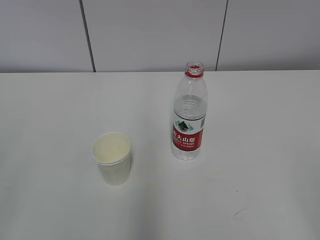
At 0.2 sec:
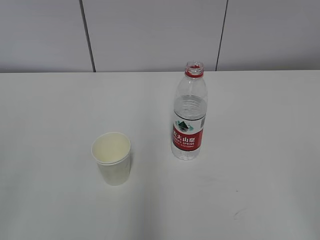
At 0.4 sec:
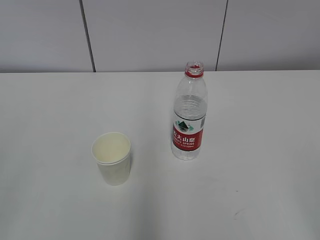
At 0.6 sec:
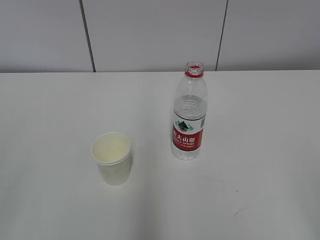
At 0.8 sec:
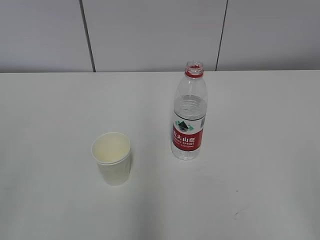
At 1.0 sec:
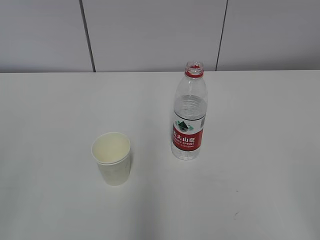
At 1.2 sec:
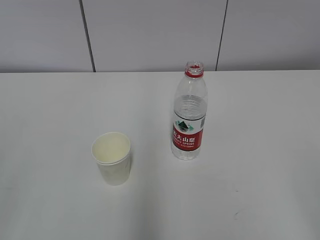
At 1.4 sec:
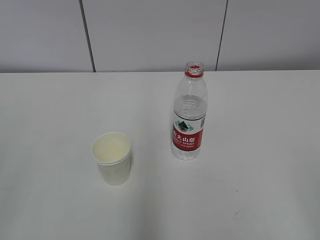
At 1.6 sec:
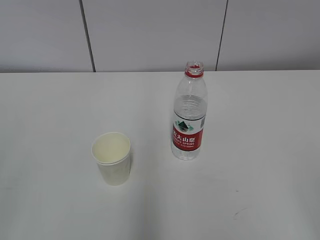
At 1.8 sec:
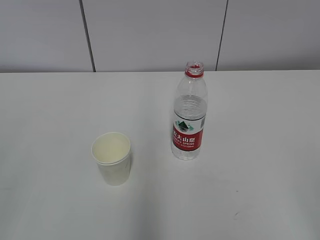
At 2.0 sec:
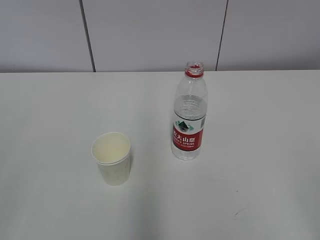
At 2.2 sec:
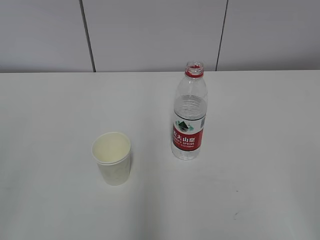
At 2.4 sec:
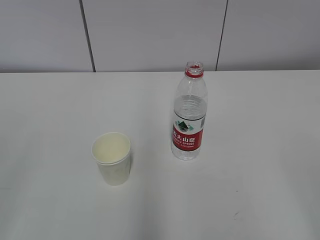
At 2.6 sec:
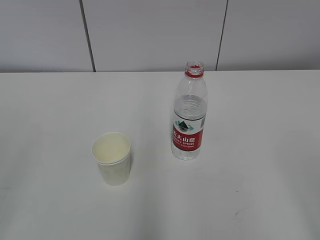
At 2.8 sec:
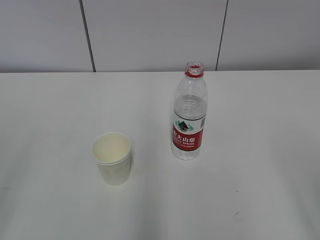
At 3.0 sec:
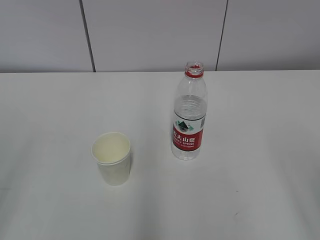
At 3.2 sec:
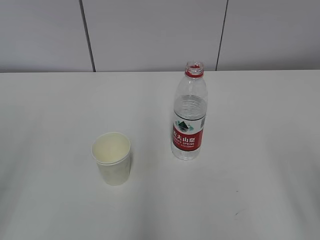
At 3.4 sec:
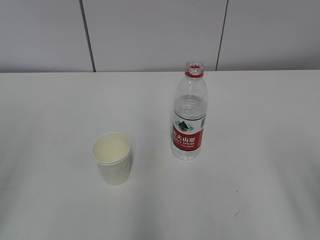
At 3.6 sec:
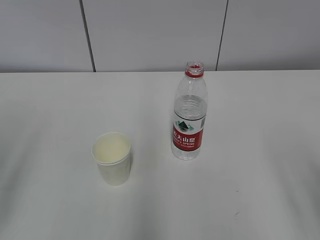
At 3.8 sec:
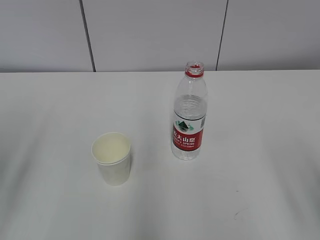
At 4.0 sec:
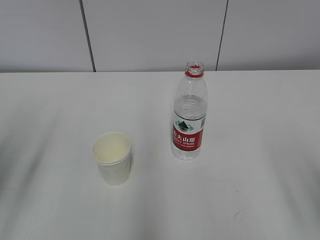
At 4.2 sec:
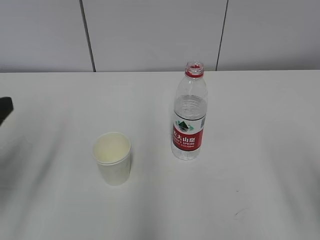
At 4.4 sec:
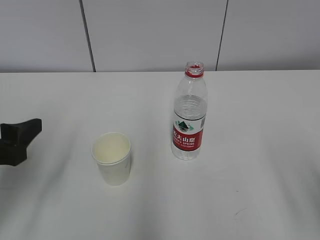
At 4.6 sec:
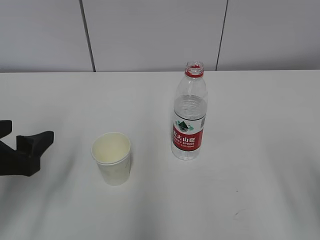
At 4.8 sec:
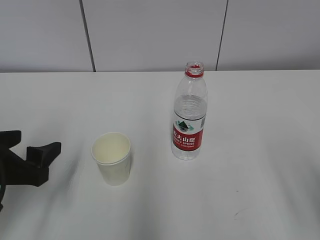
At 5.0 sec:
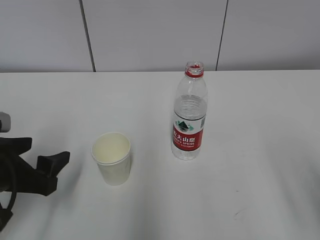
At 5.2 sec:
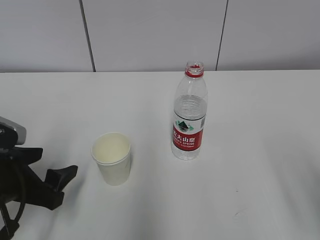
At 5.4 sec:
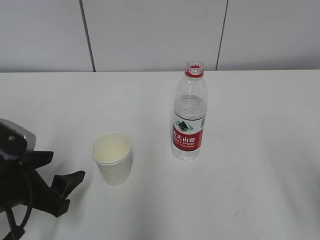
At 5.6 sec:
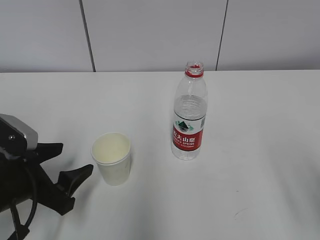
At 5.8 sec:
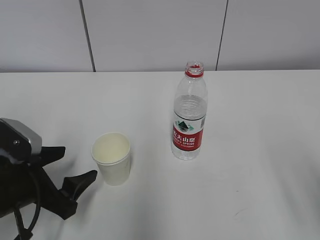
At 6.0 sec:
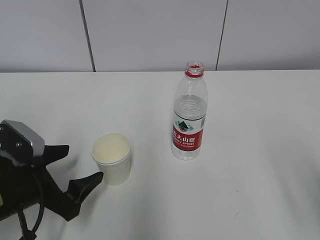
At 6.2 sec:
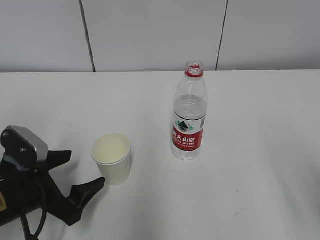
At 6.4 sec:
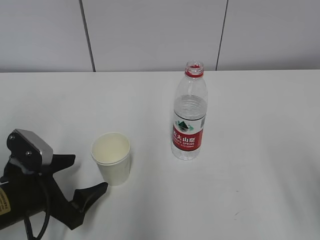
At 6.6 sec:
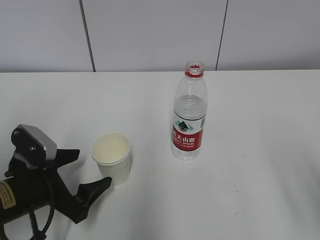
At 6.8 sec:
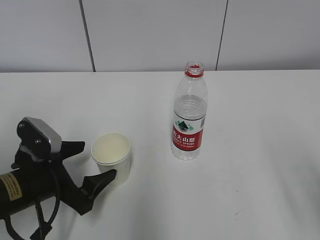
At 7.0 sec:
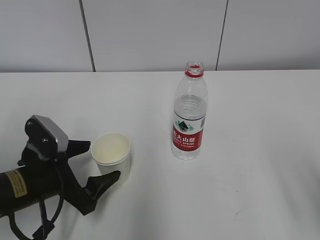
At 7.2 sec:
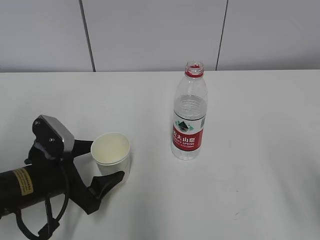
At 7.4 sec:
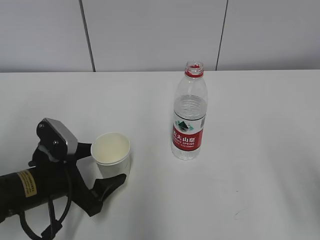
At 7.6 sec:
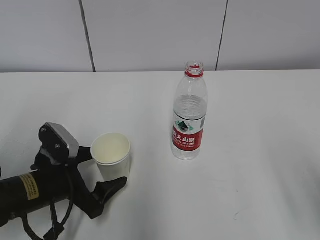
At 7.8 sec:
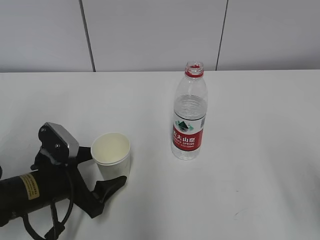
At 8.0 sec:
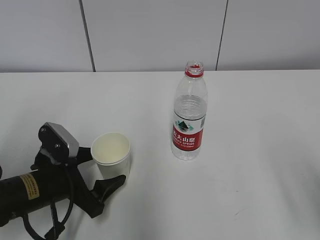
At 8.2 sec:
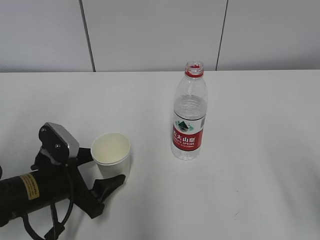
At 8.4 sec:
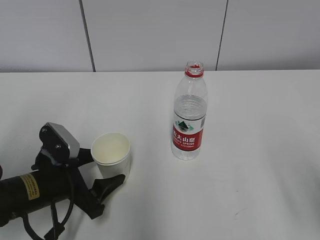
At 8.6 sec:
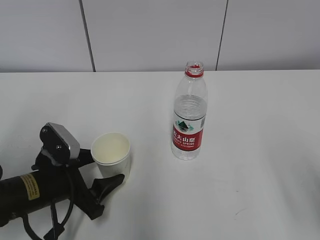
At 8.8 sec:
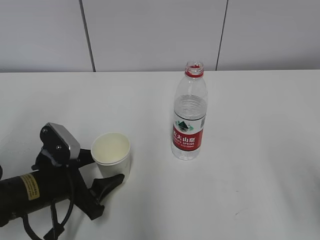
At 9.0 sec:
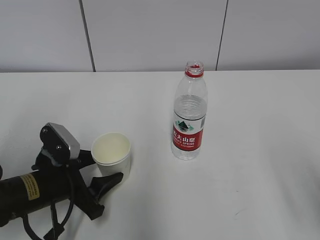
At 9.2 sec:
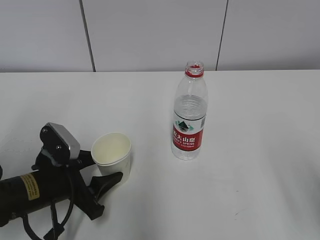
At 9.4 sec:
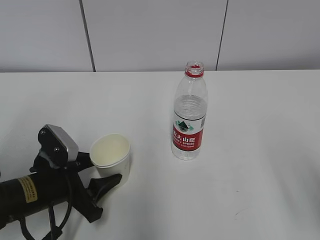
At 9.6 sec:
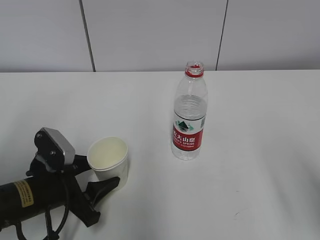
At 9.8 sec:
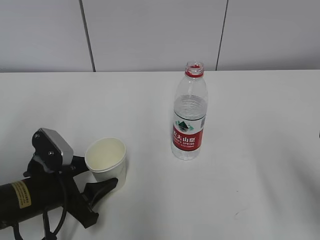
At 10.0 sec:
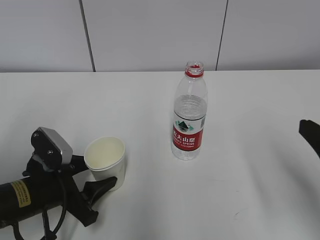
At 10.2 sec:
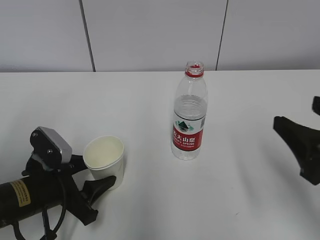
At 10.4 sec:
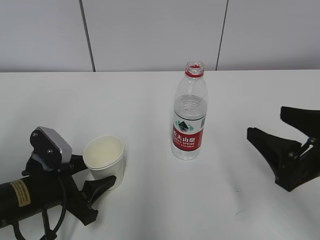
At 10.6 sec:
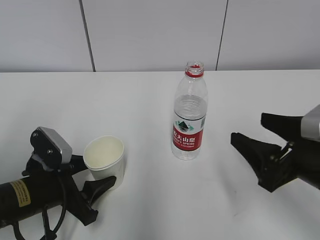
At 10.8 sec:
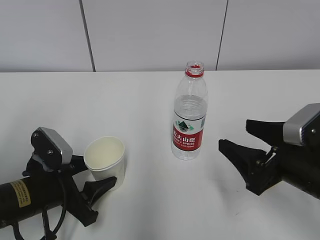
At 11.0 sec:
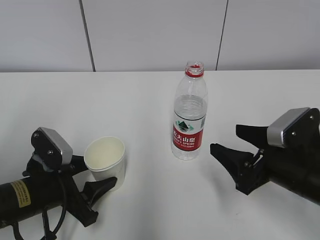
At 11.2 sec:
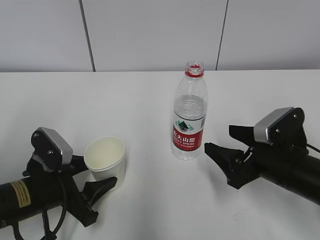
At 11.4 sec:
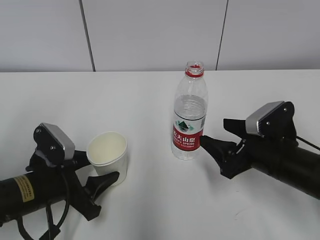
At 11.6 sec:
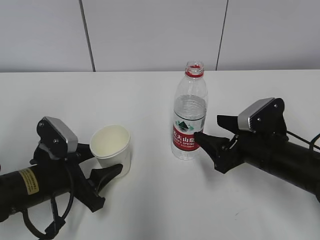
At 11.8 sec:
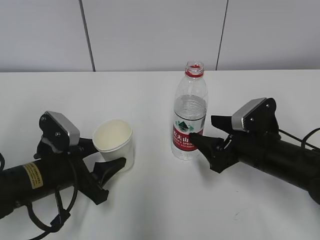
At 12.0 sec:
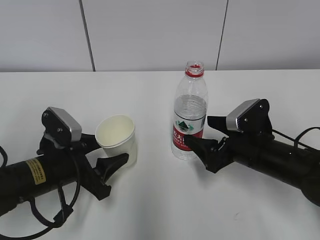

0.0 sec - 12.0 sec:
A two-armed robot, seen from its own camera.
Step, 0.0 sec - 8.0 sec: Grab the paper cup with the left hand.
Step, 8.2 sec - 11.2 sec: Grab the water bottle with the right hand.
3.0 sec - 4.4 sec: The left gripper travels forward, downward and to the right by about 15 cm.
4.4 sec - 6.0 sec: The left gripper goes approximately 10 cm downward.
6.0 sec - 7.6 sec: The left gripper moves about 5 cm.
7.6 sec - 9.0 sec: The left gripper closes its fingers.
9.0 sec - 10.4 sec: The right gripper is displaced forward by some 10 cm.
10.4 sec - 12.0 sec: The right gripper heads forward and downward, covering about 15 cm.

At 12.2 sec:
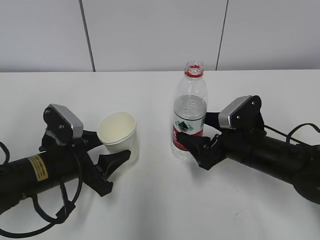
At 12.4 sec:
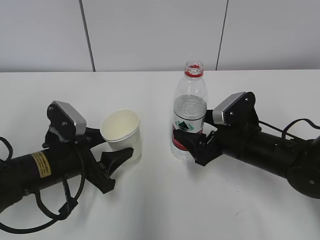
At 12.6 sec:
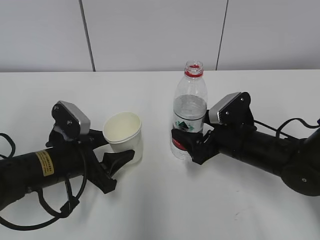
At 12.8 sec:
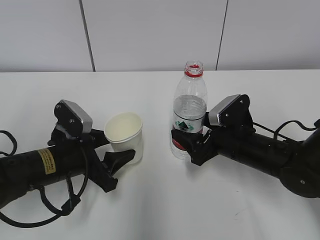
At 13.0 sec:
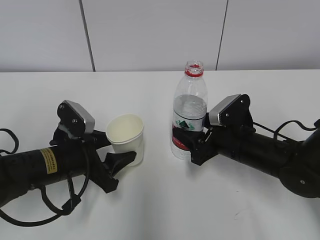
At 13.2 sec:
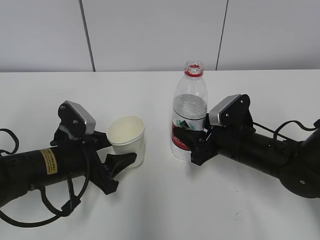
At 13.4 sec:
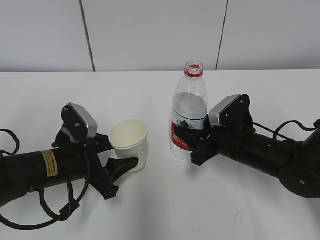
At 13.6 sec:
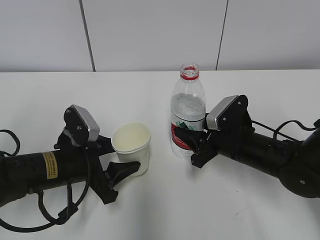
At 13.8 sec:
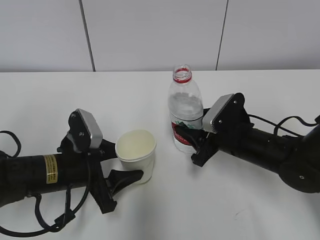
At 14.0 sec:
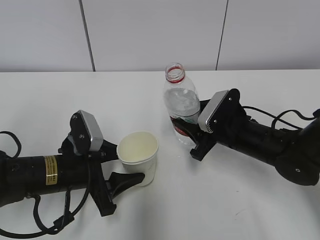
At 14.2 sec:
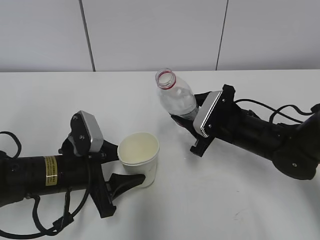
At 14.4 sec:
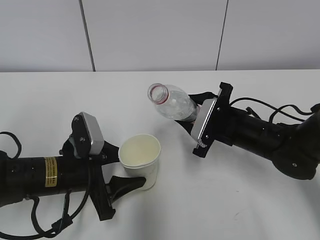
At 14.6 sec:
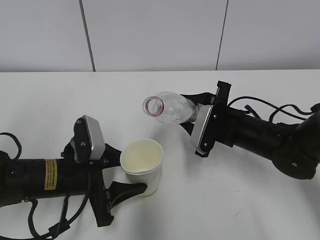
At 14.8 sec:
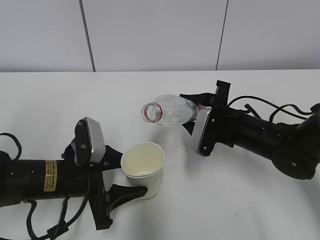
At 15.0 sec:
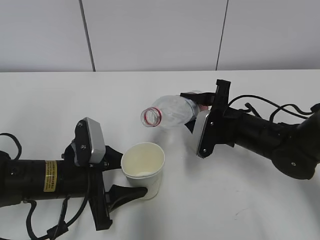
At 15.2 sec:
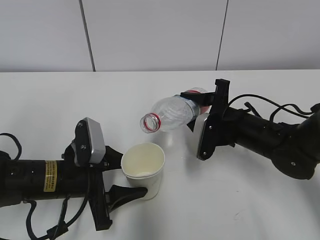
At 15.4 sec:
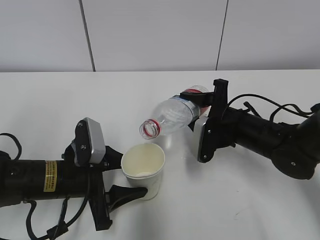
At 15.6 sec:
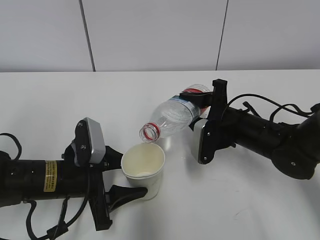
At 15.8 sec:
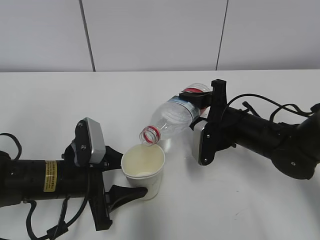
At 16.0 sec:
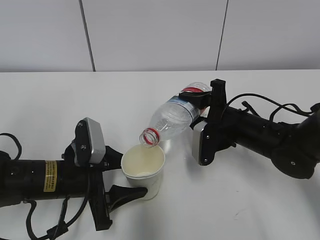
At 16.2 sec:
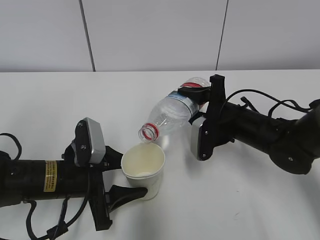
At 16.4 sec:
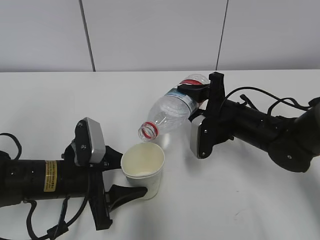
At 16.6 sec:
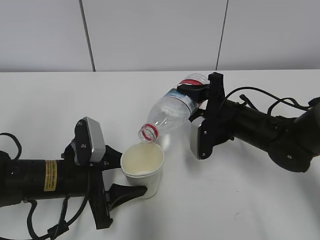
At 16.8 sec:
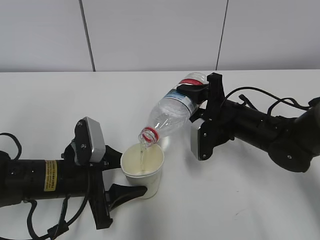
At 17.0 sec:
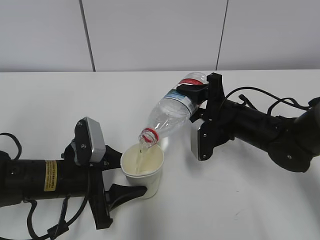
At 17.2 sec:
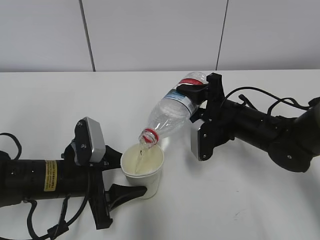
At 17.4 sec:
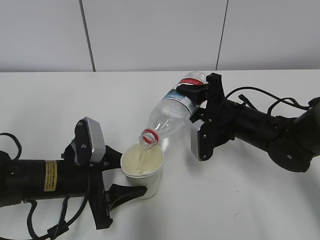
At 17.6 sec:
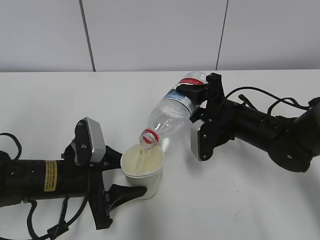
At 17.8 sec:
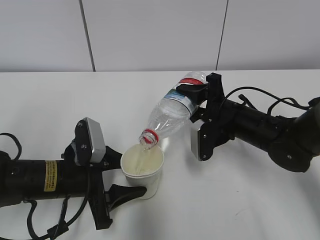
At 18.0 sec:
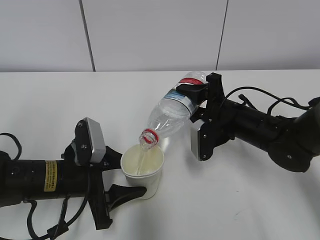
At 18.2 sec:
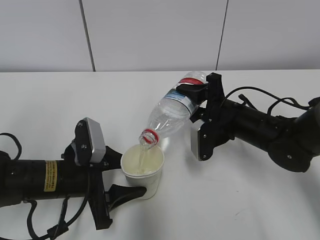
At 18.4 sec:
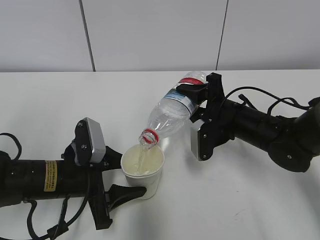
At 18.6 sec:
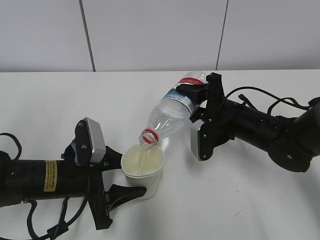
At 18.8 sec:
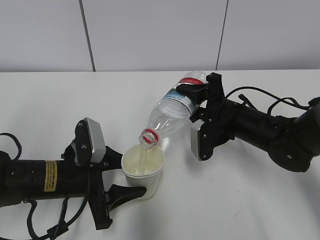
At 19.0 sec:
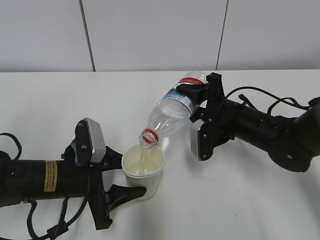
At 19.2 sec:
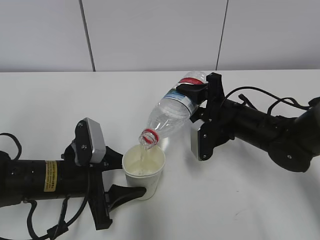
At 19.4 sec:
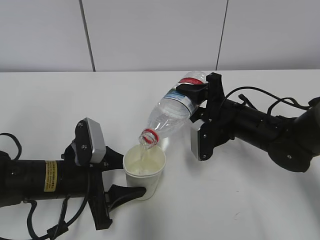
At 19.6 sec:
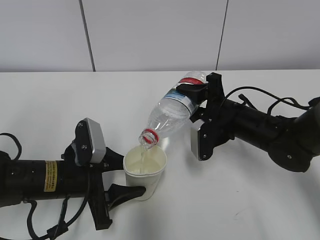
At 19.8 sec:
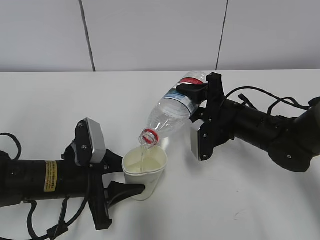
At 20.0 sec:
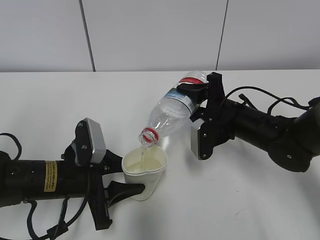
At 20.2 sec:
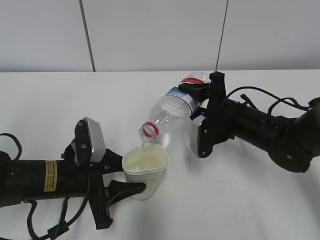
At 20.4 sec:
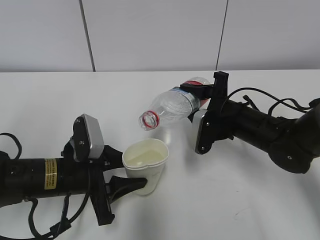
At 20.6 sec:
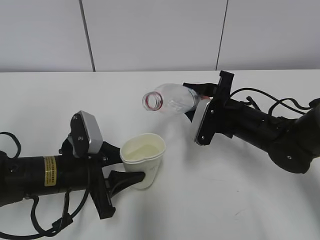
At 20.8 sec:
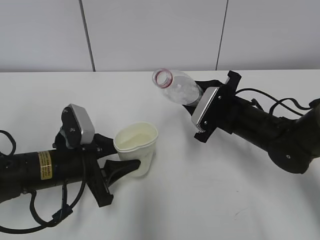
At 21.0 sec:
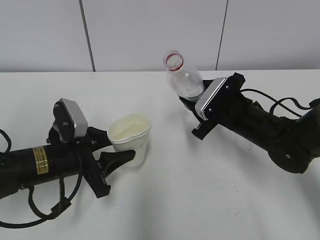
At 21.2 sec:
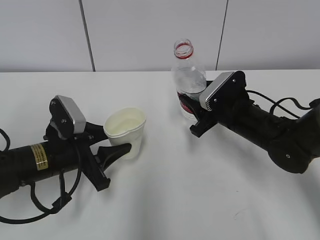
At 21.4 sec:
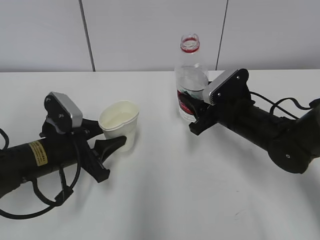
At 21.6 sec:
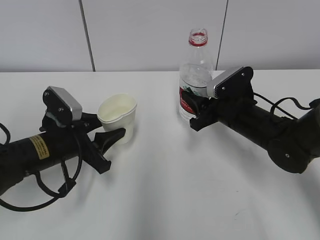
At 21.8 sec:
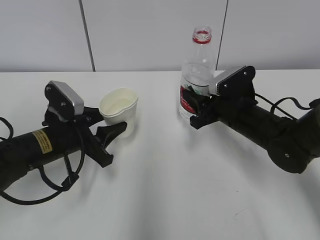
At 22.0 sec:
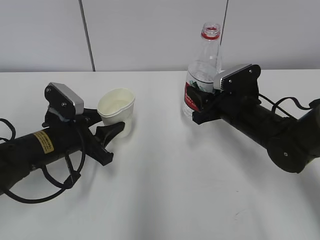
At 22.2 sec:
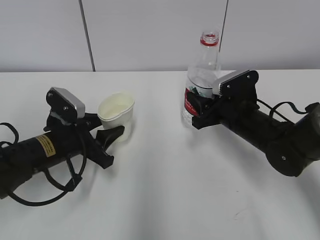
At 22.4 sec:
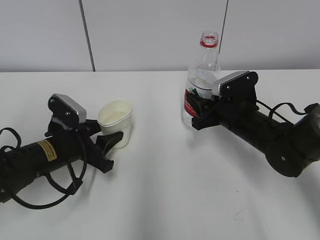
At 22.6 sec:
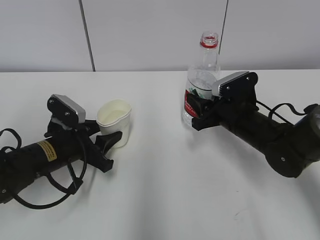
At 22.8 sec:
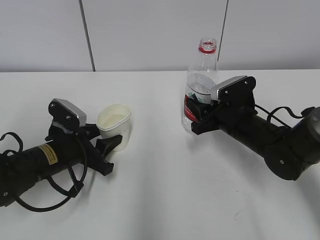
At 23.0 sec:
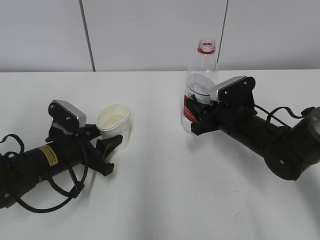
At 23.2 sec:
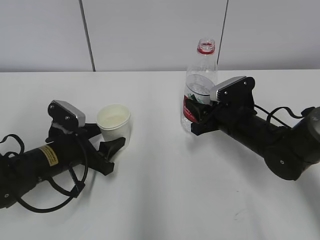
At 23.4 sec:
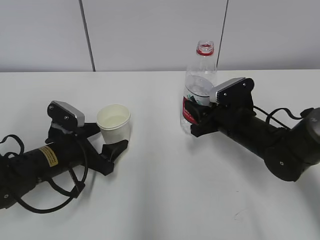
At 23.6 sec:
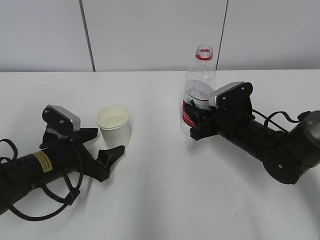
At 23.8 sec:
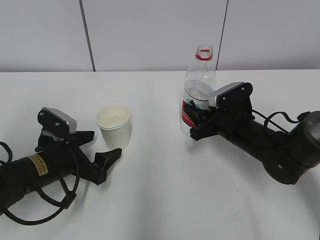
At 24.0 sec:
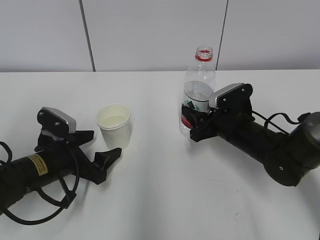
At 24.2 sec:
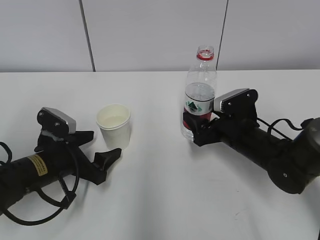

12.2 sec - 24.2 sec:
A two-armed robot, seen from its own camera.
Step, 12.2 sec - 13.8 sec: Lift the paper cup with the left hand.
Step, 14.0 sec - 16.8 sec: Fill water with the left hand.
Step, 14.0 sec - 16.8 sec: Pour water with the right hand.
Step, 19.4 sec - 20.2 sec: Place the water bottle with the right hand.
12.2 sec - 13.8 sec: The right gripper closes up.
15.2 sec - 16.6 sec: The grippers make only small movements.
16.6 sec - 19.8 sec: Both grippers stay about where they are.
22.6 sec - 24.2 sec: The right gripper opens its fingers; the left gripper opens.
